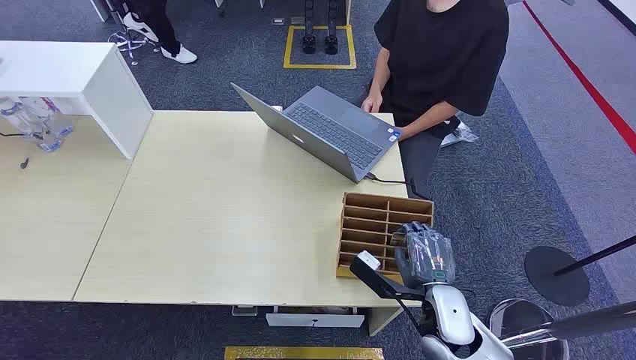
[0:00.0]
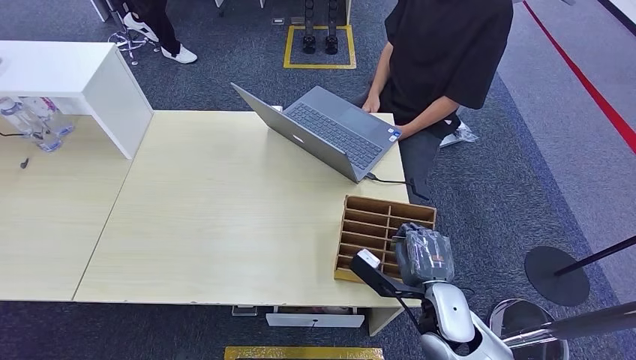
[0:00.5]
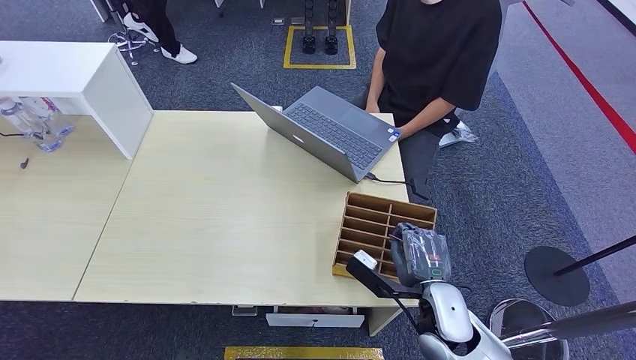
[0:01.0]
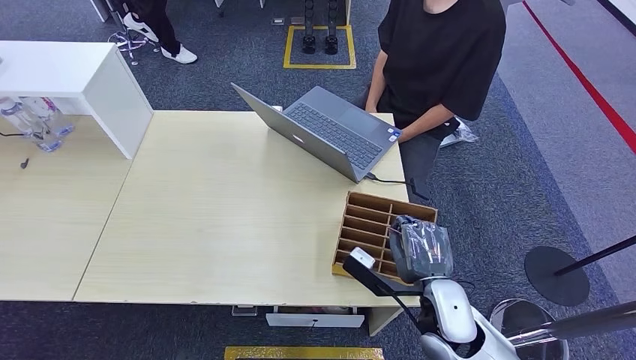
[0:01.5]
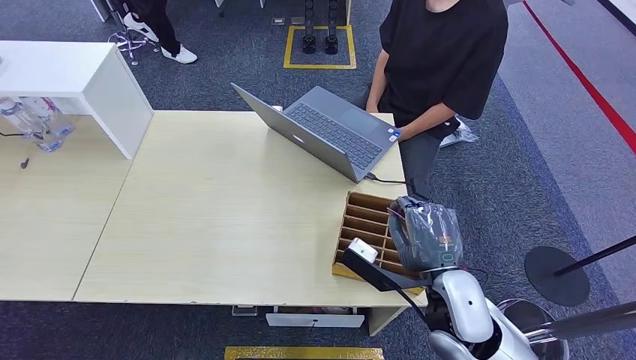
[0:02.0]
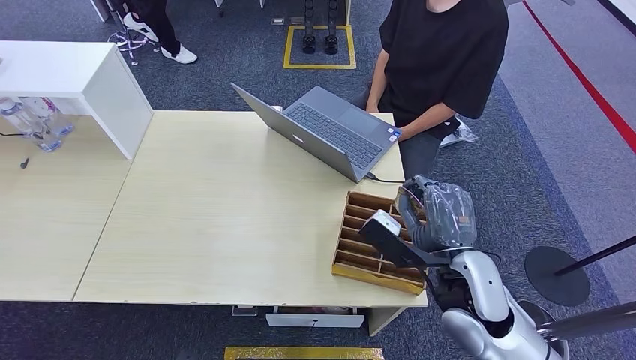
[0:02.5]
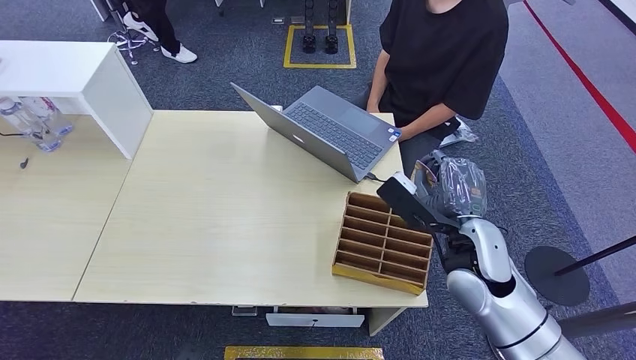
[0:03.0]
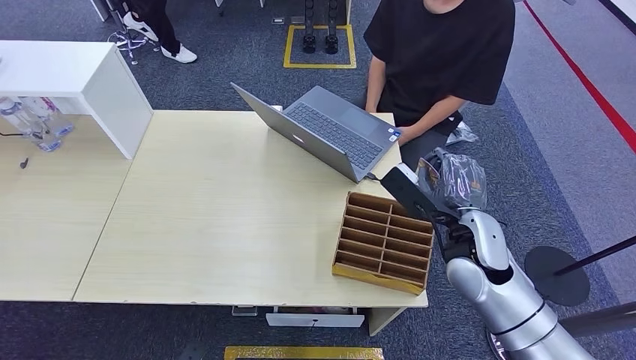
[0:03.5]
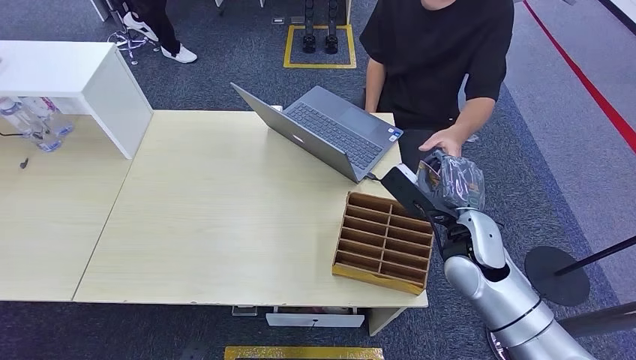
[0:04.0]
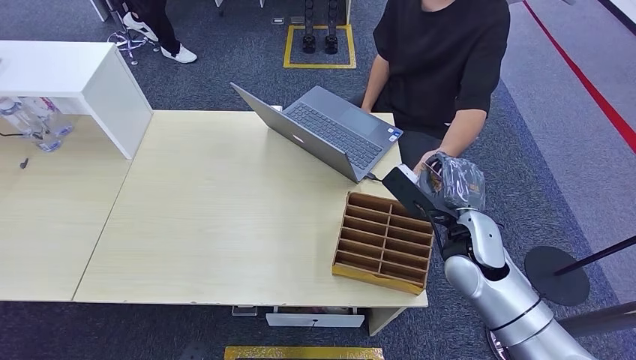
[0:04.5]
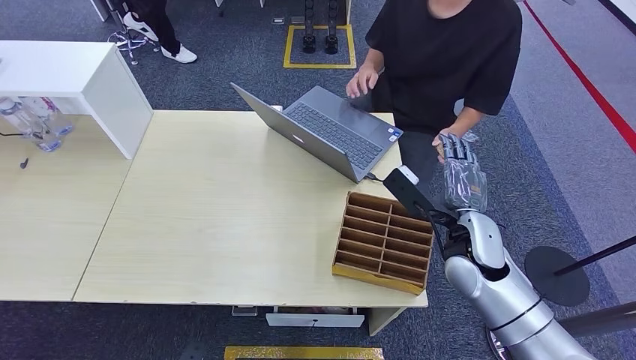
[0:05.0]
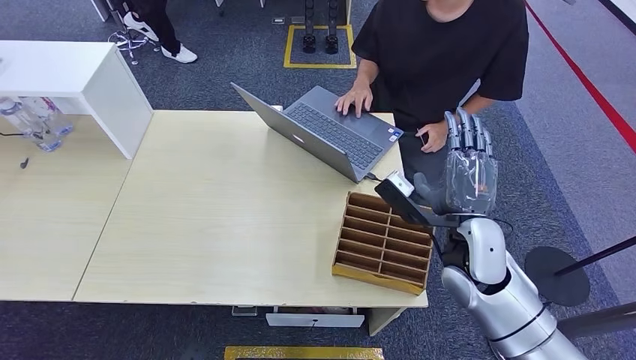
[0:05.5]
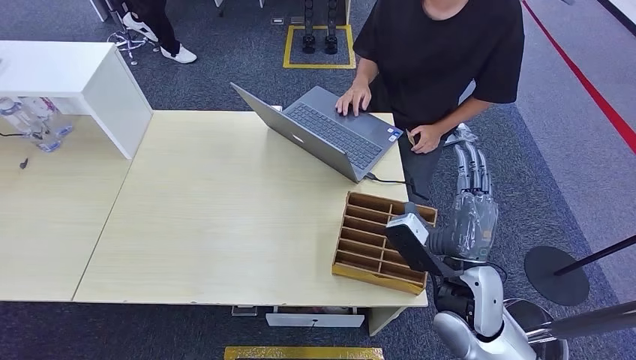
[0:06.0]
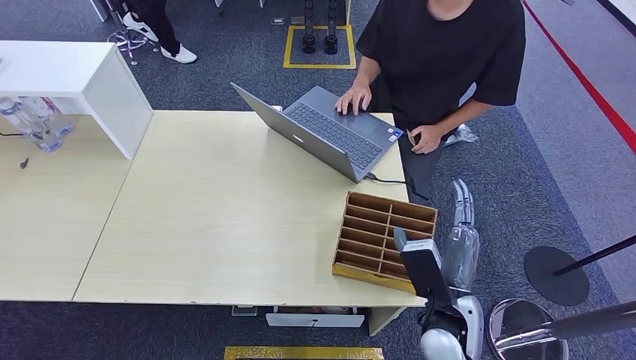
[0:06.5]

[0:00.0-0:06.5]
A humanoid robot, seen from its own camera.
Step, 0:00.0 to 0:01.5: Pick up the room card from the card holder.
Step, 0:02.0 to 0:06.5: Hand the room card to the target.
0:02.0 to 0:04.5: The right hand travels forward and to the right by approximately 10 cm.
0:04.5 to 0:06.5: The right hand goes roughly 10 cm backward and to the left.
